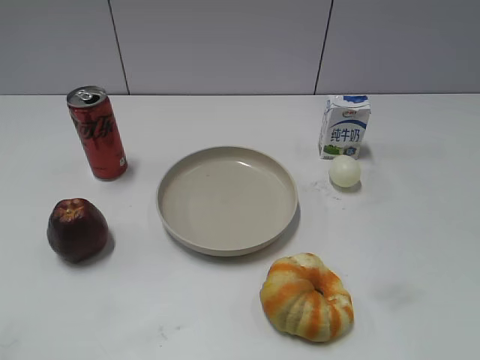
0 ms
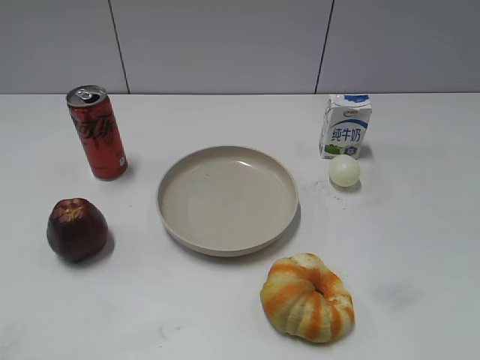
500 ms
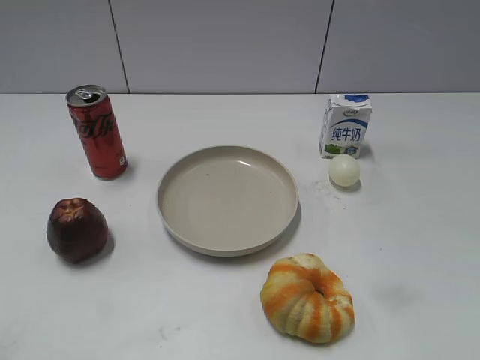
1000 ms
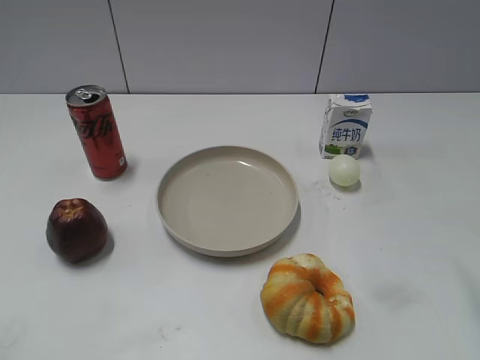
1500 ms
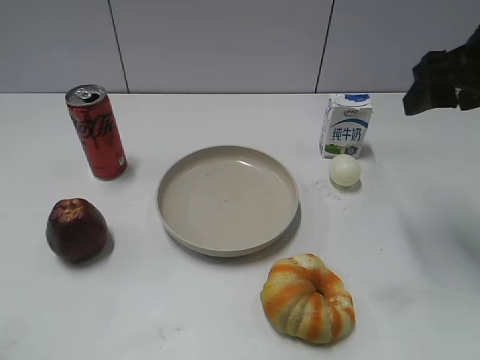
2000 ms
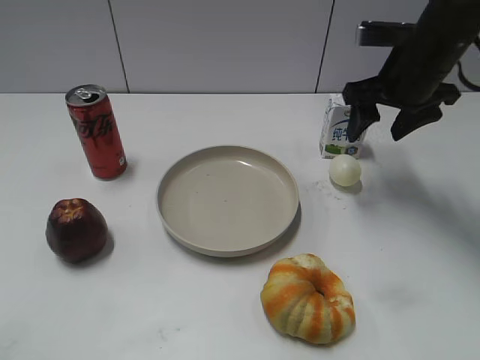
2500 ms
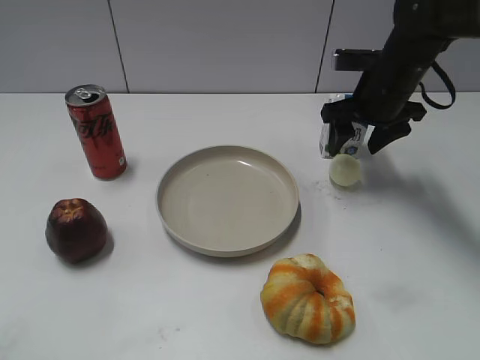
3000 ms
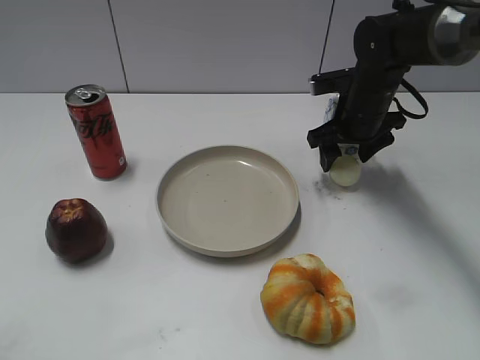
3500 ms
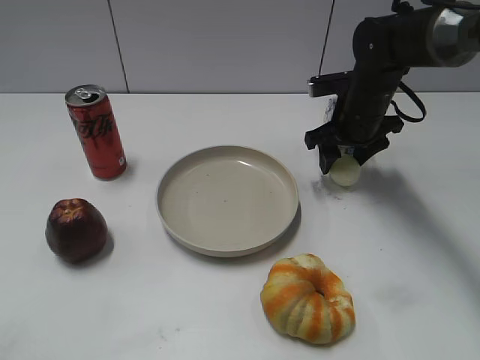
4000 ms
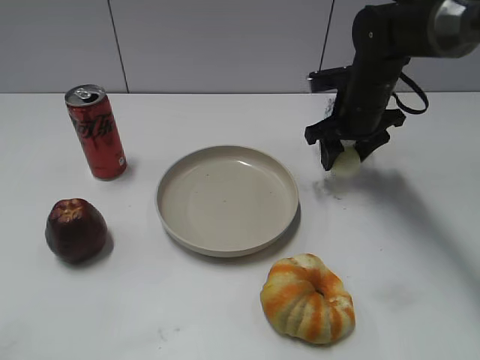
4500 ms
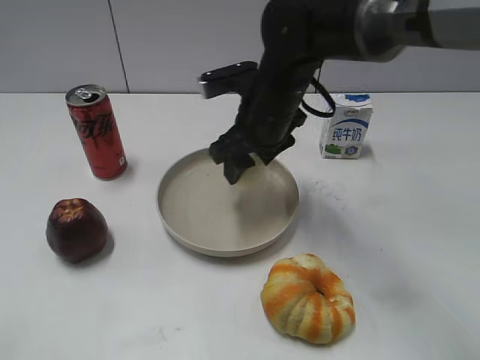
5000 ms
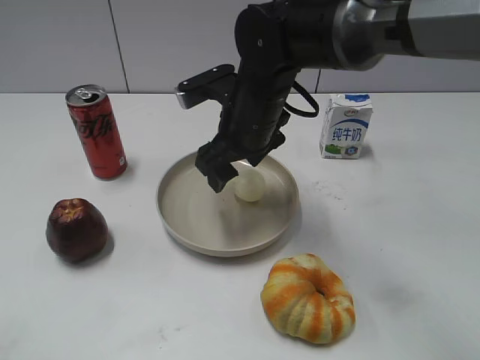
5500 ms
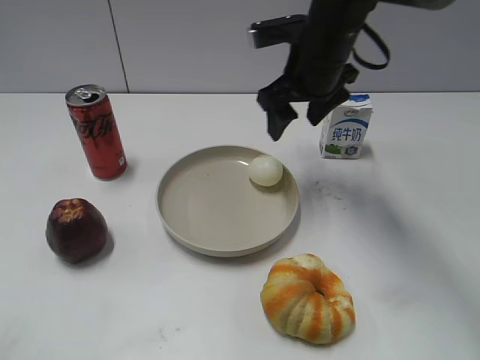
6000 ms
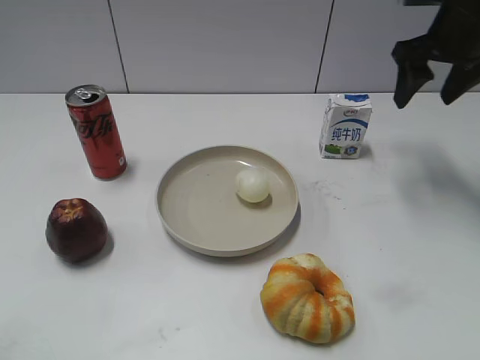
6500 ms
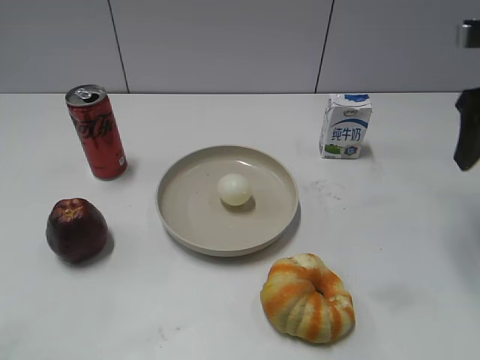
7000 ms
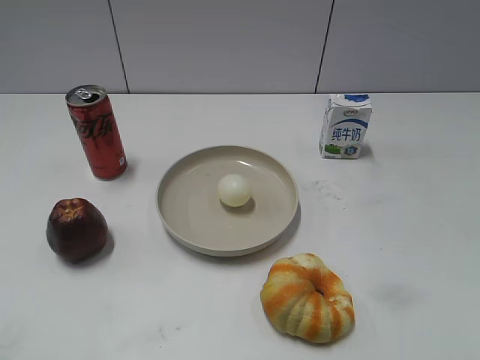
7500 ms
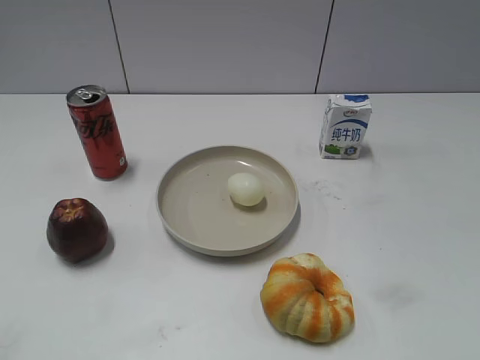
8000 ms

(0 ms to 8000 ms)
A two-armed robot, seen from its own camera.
Step, 0 ms - 4000 ms: Grasp the egg with right gripper.
Step, 4500 ms - 5500 ms: Place the egg on the plate with right gripper.
2000 ms - 4000 ms: The right gripper is displaced downward, forward and to the left by approximately 20 cm, and closes up.
4000 ms - 6000 ms: The right gripper shifts roughly 10 cm upward and to the left, and opens its fingers.
6000 ms - 8000 ms: The right gripper is displaced backward and to the right by some 40 cm.
